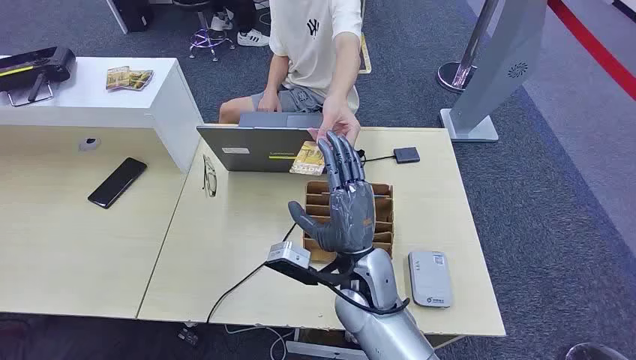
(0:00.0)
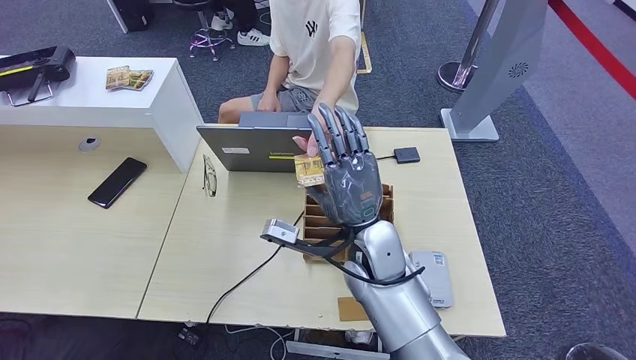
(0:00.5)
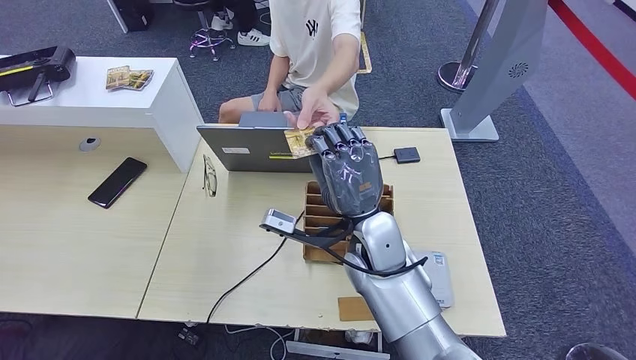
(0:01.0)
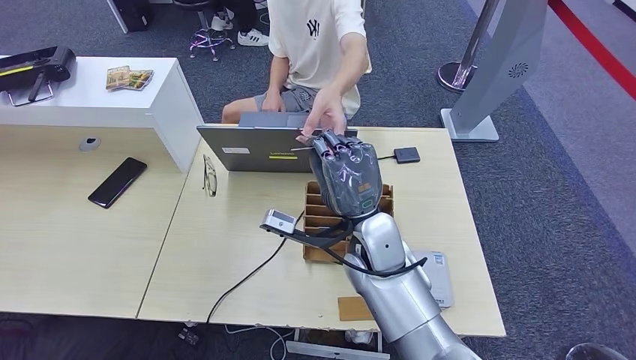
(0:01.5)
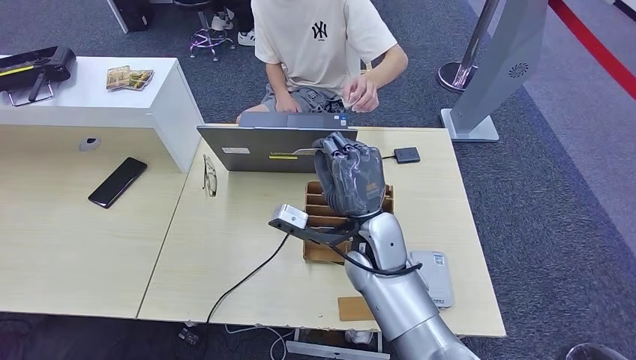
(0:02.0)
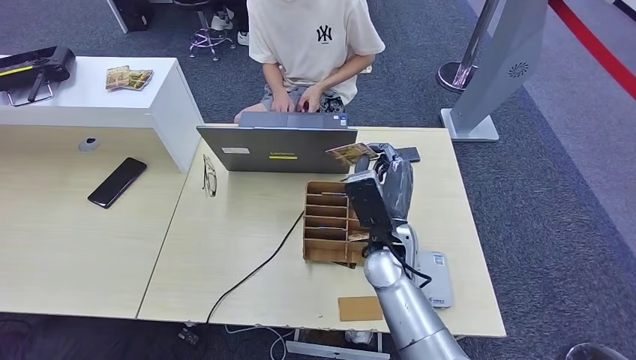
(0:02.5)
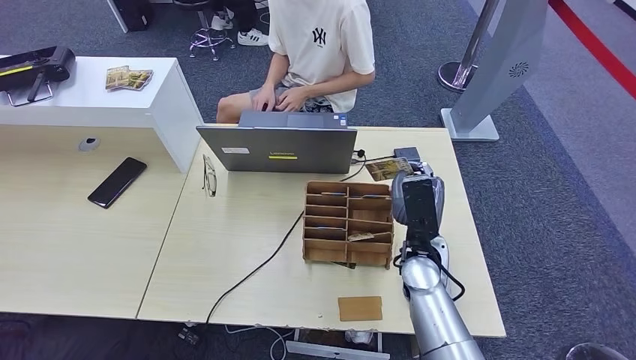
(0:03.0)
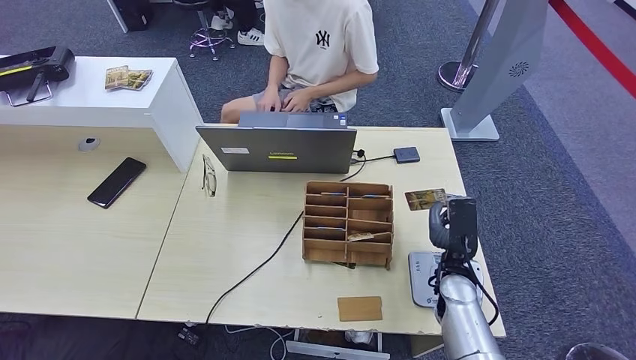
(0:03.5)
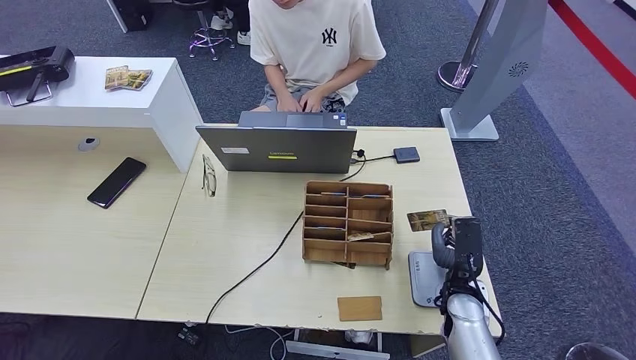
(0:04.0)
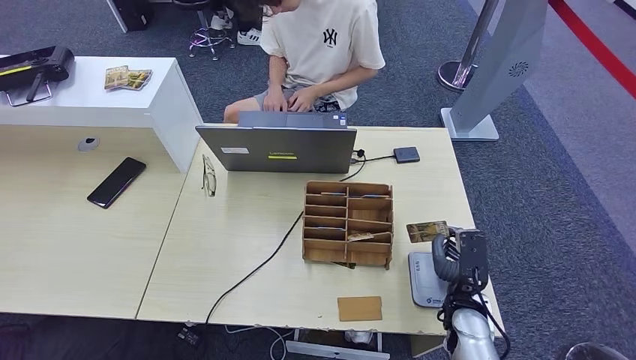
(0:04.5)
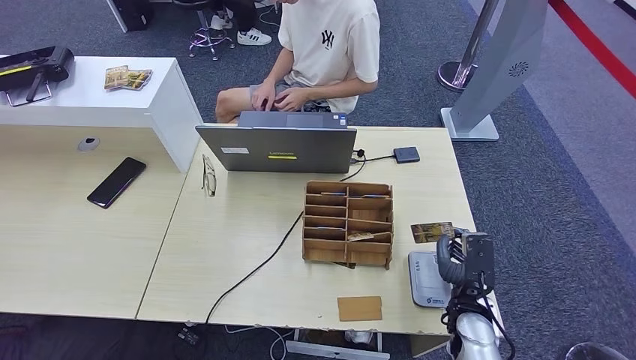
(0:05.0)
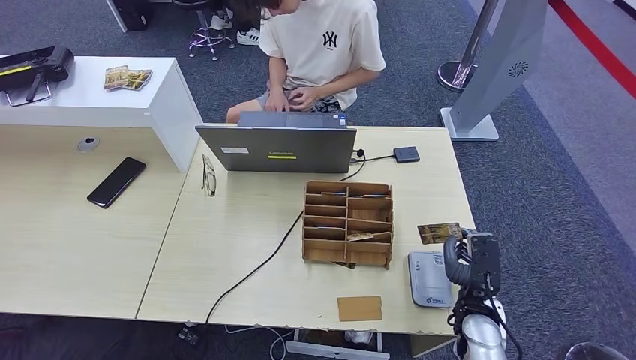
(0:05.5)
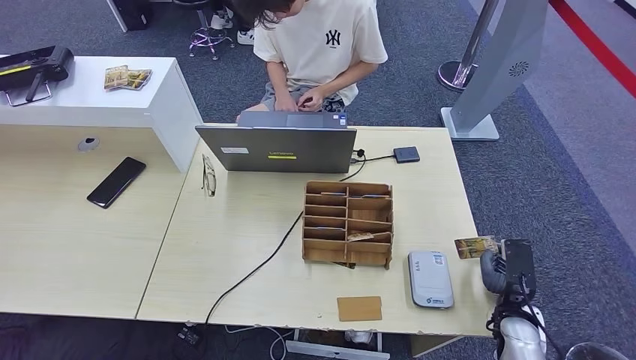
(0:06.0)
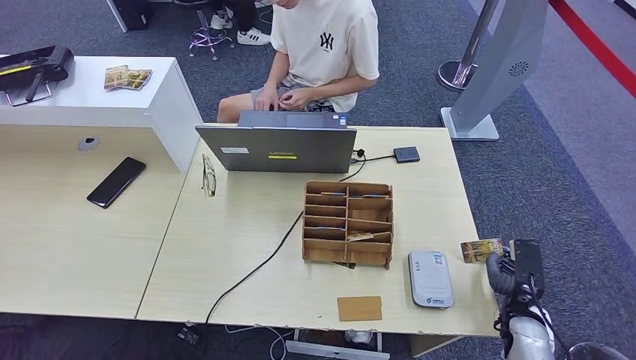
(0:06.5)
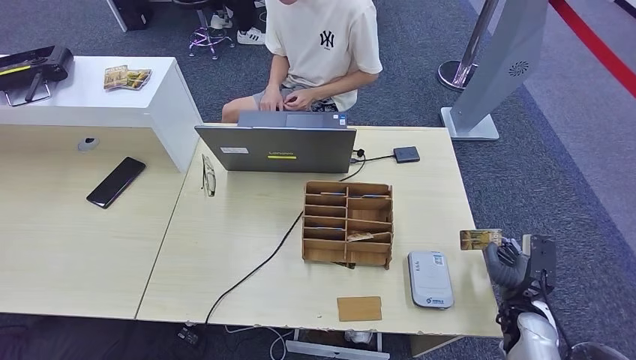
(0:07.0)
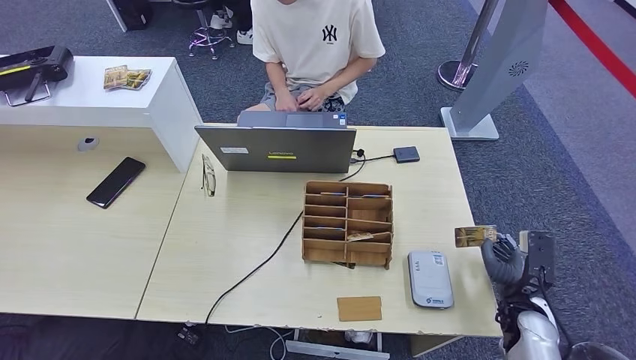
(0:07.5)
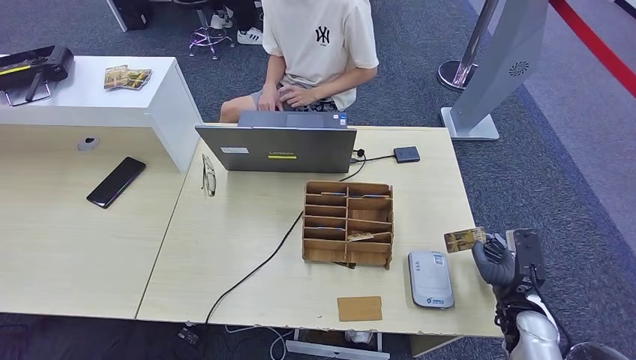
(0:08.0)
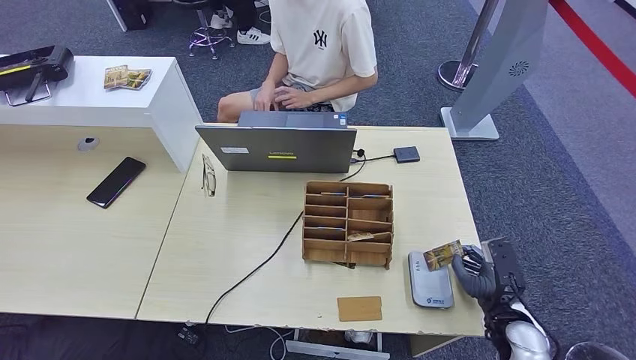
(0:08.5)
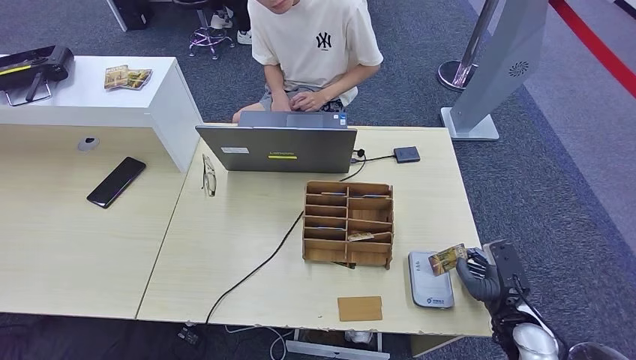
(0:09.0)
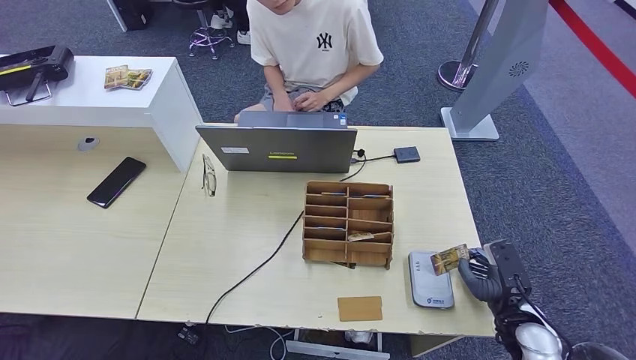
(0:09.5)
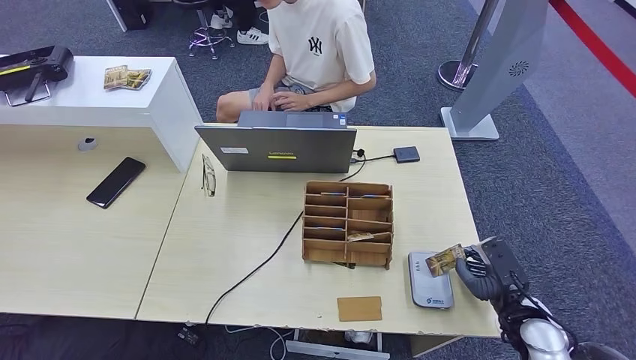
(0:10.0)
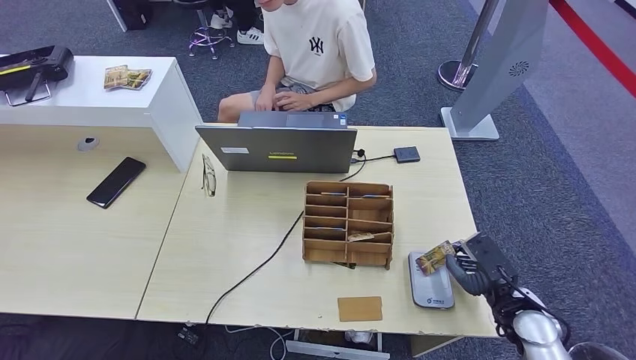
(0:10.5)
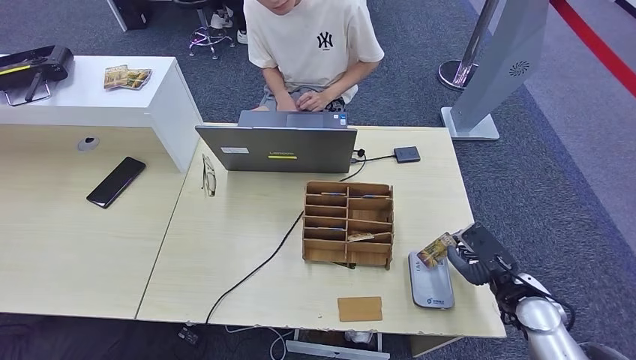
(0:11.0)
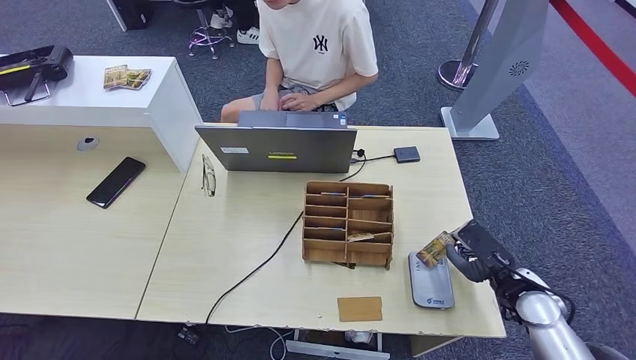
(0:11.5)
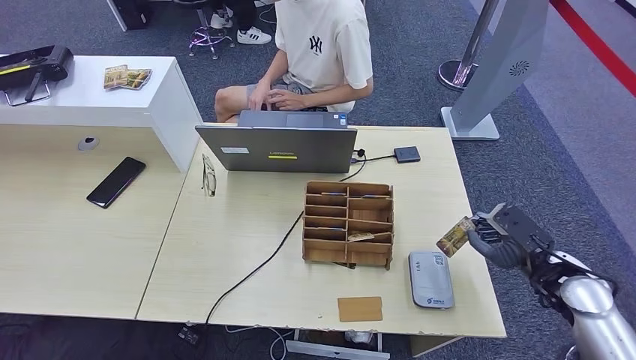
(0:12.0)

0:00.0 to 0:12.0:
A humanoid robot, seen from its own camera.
Step, 0:00.0 to 0:01.5: Take the ID card from the person's hand.
Step, 0:02.0 to 0:09.5: Place the ID card on the card reader.
0:02.0 to 0:04.0: The right hand is displaced to the right, downward and backward by about 25 cm.
0:04.0 to 0:06.0: The right hand moves to the right, about 10 cm.
0:06.0 to 0:08.0: The hands move only a little.
0:10.0 to 0:12.0: The right hand heads upward and forward, covering roughly 10 cm.

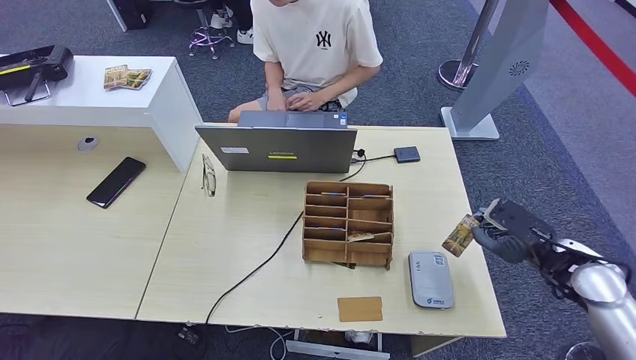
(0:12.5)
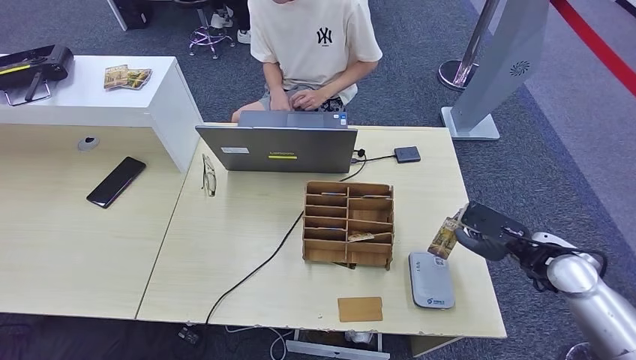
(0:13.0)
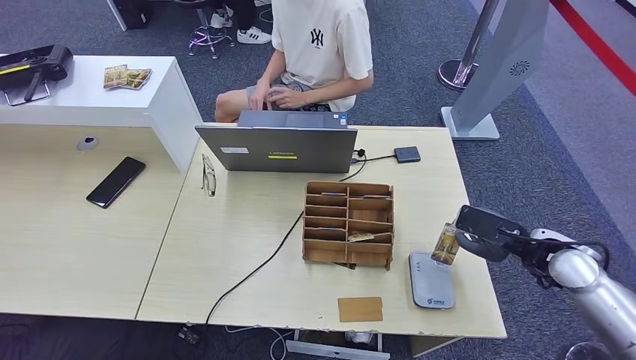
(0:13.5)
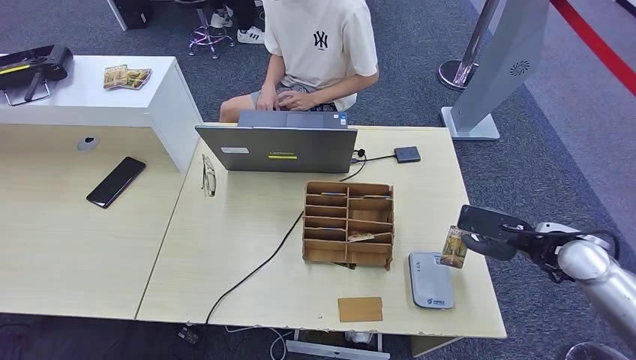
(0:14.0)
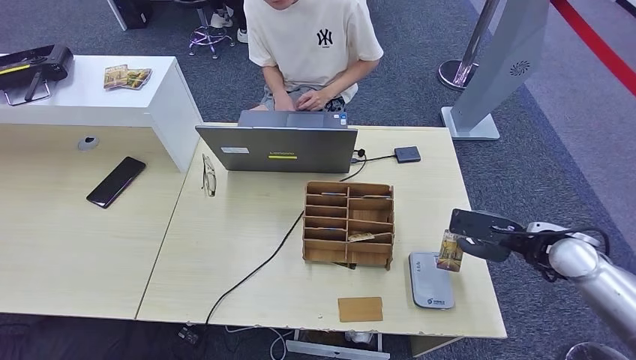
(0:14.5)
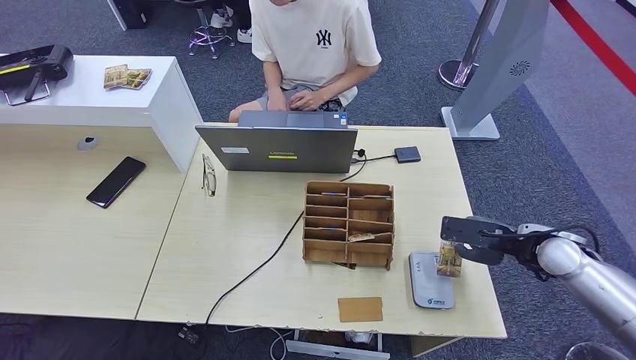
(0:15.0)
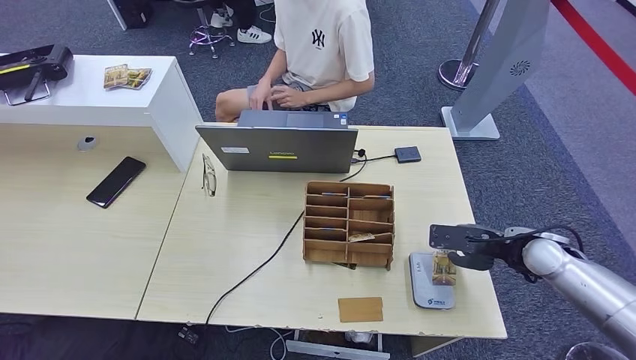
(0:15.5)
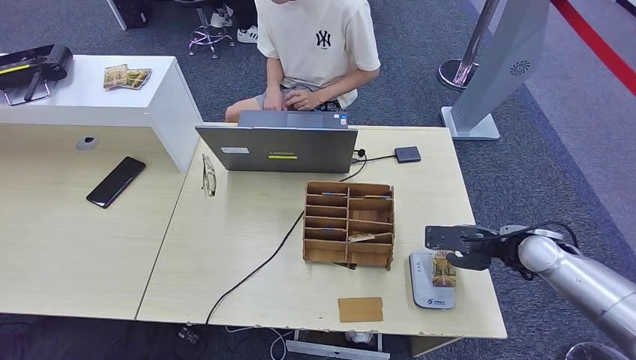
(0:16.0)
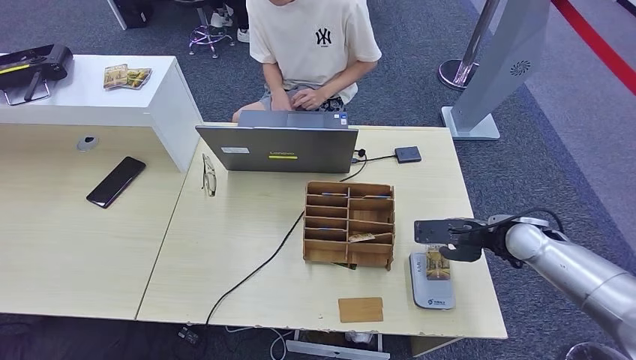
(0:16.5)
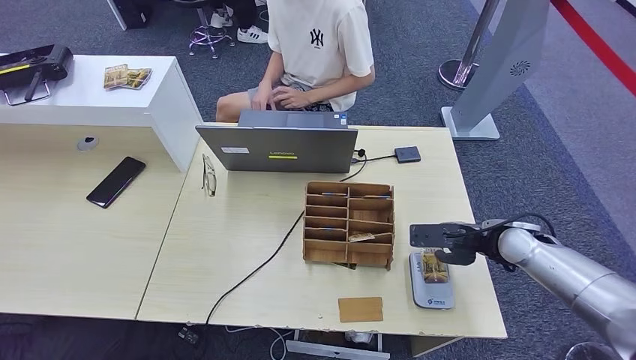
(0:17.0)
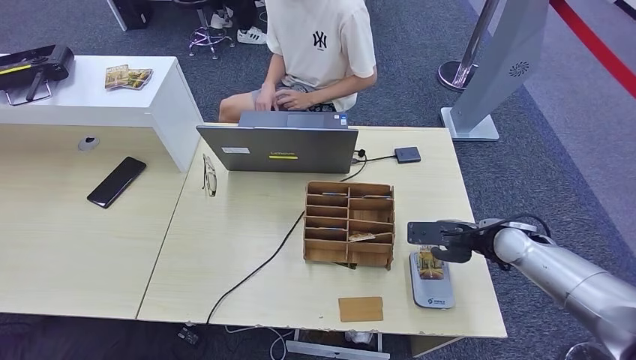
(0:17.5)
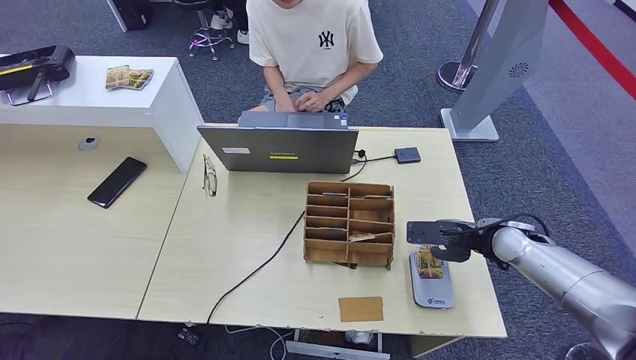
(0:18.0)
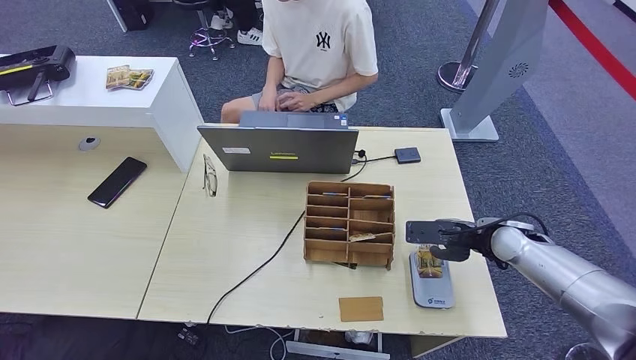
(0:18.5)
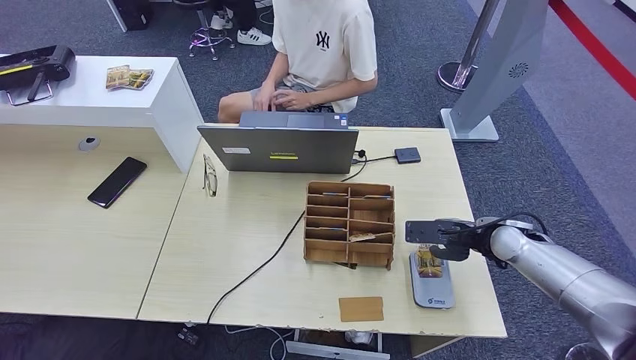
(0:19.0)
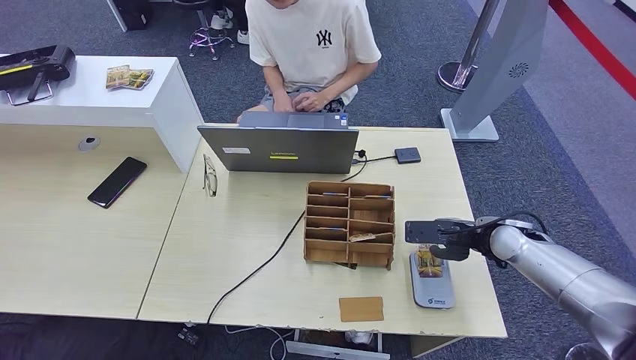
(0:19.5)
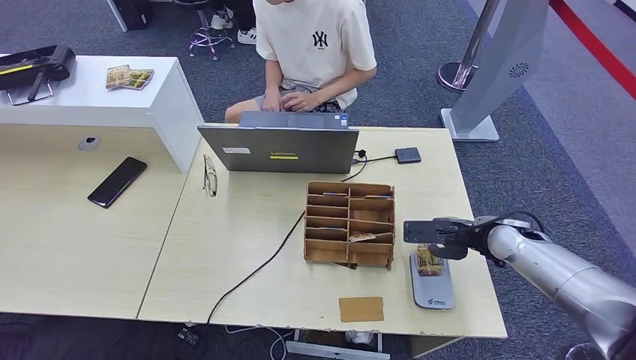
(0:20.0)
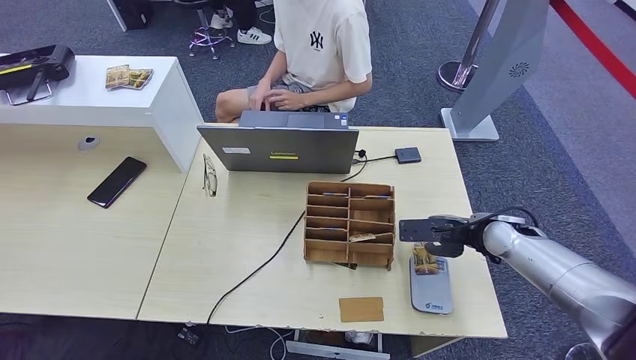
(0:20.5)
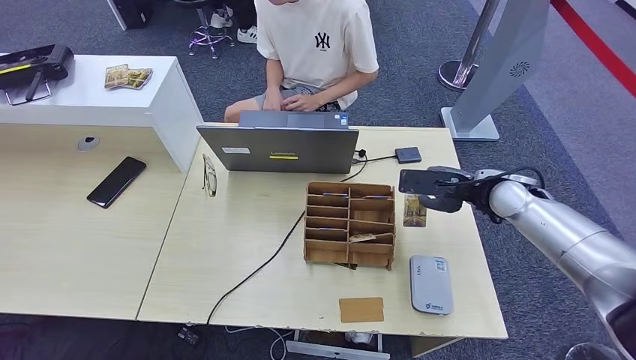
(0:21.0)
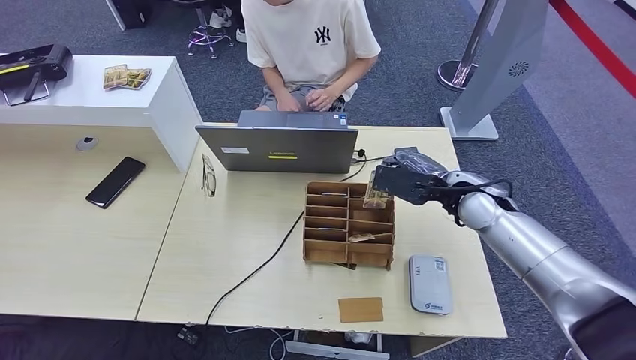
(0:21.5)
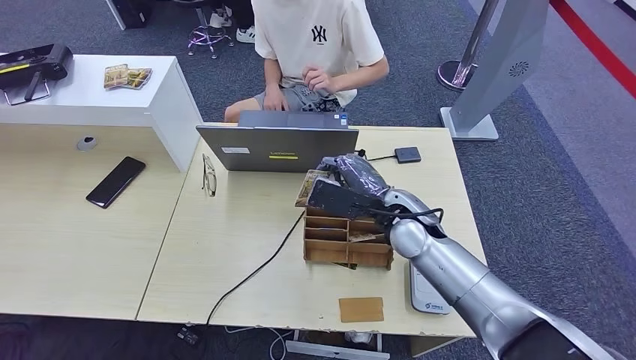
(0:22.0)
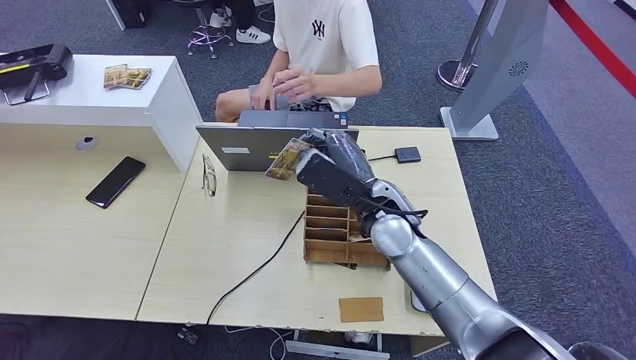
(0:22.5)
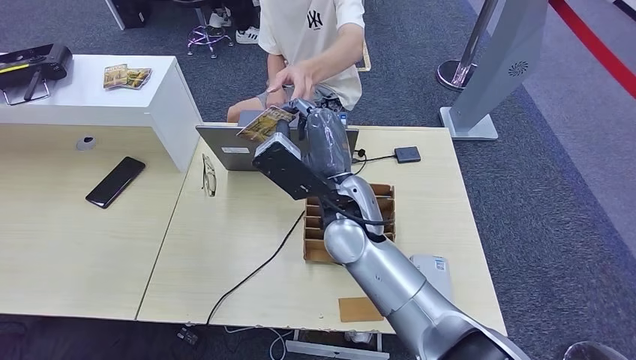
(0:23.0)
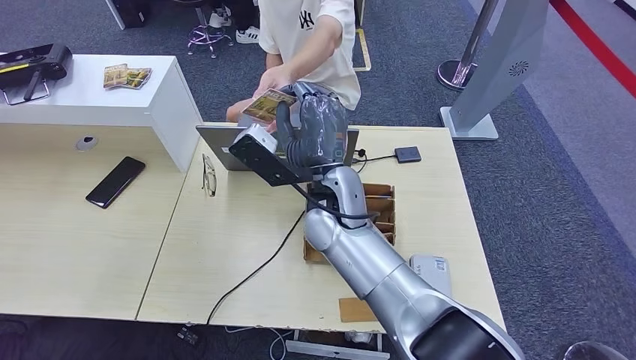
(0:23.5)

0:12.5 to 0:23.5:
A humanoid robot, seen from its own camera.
0:12.5 to 0:14.5: The right hand ends up some 5 cm from where it was.
0:14.5 to 0:16.0: There are only small adjustments of the hands.
0:16.0 to 0:18.0: The hands move only a little.
0:18.0 to 0:20.0: The two hands keep their place.
0:20.0 to 0:21.5: The right hand goes about 10 cm to the left and upward.
0:21.5 to 0:23.5: The right hand heads to the left, covering roughly 25 cm.
